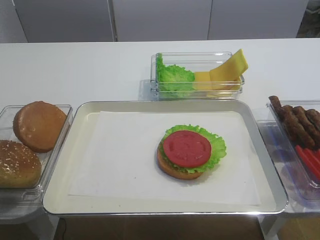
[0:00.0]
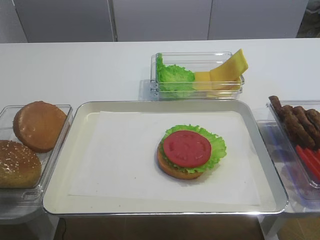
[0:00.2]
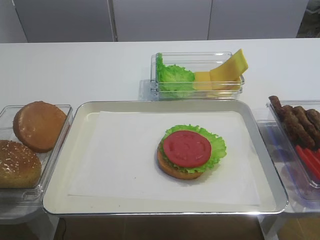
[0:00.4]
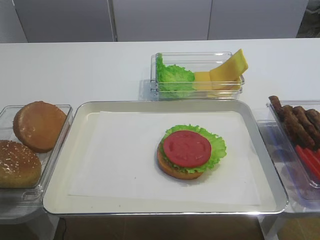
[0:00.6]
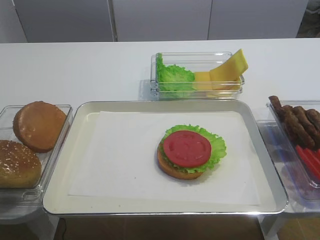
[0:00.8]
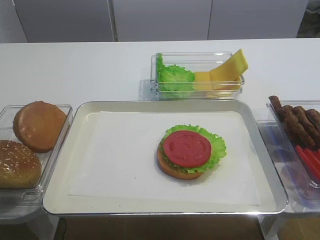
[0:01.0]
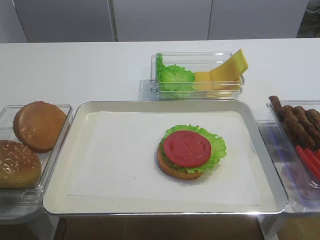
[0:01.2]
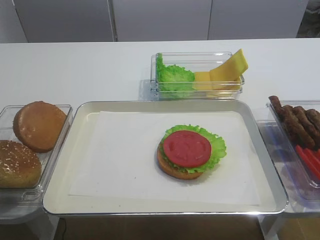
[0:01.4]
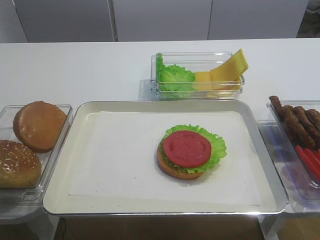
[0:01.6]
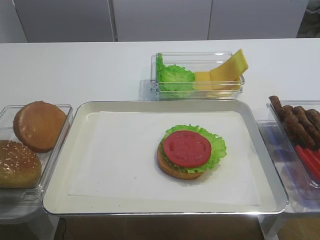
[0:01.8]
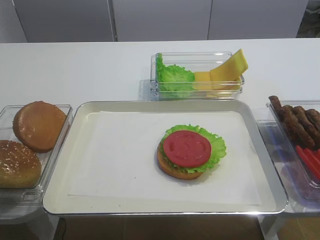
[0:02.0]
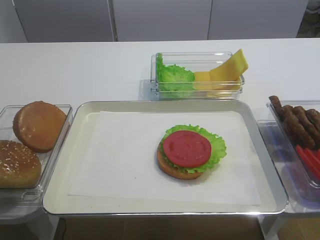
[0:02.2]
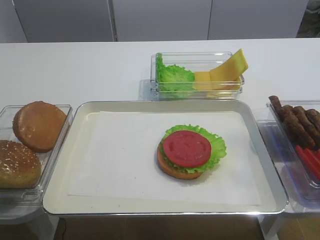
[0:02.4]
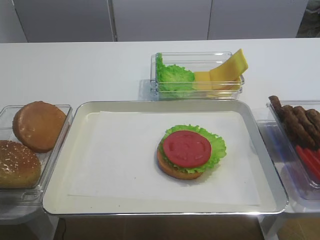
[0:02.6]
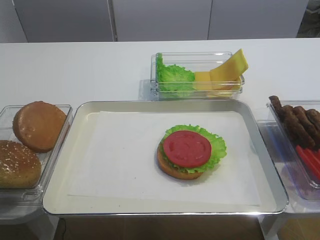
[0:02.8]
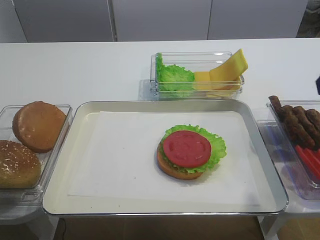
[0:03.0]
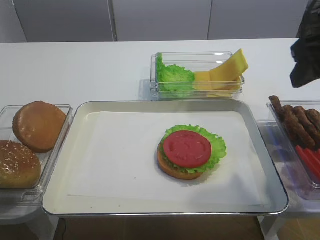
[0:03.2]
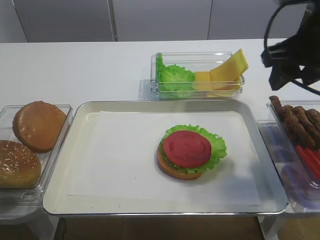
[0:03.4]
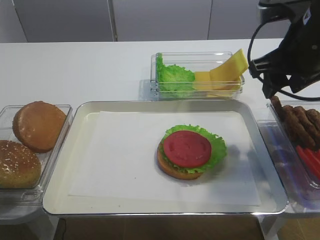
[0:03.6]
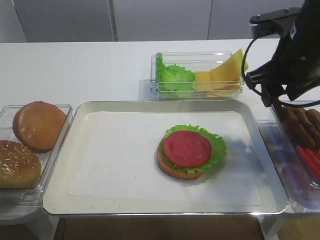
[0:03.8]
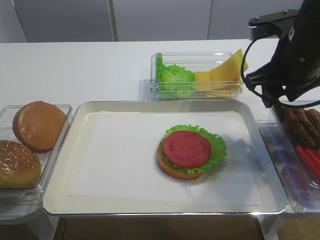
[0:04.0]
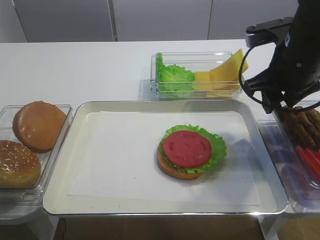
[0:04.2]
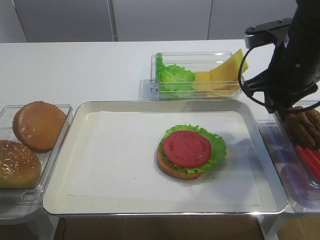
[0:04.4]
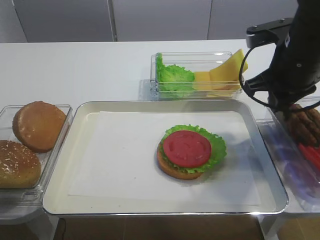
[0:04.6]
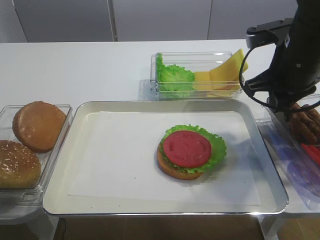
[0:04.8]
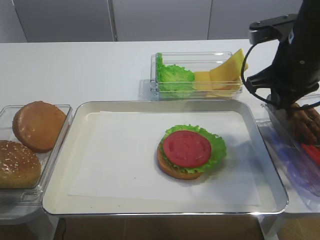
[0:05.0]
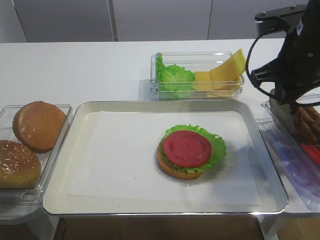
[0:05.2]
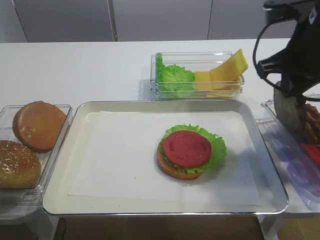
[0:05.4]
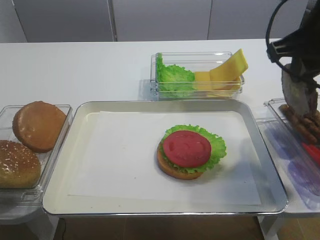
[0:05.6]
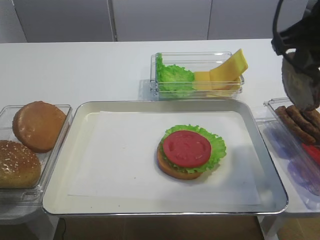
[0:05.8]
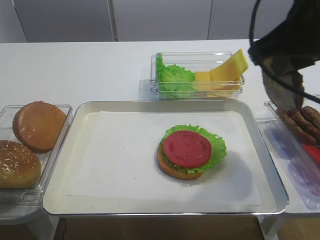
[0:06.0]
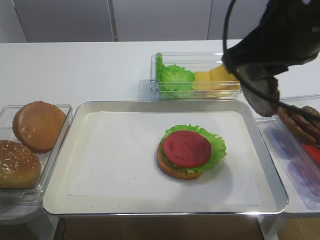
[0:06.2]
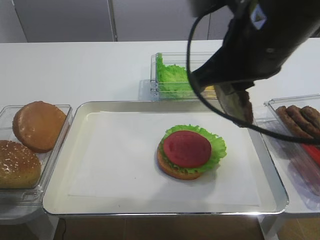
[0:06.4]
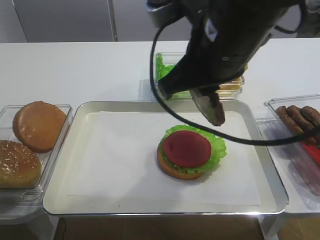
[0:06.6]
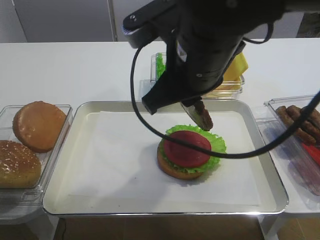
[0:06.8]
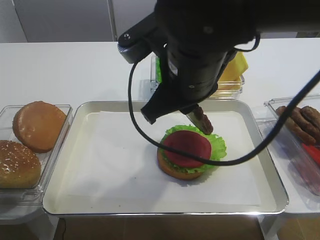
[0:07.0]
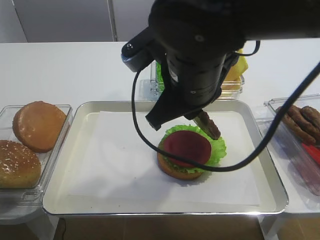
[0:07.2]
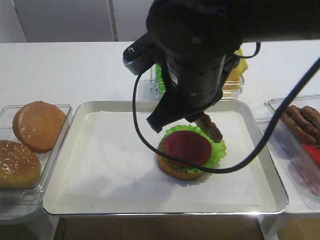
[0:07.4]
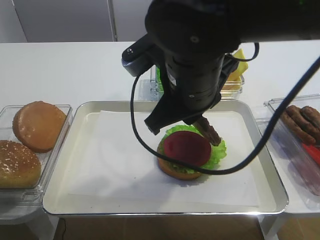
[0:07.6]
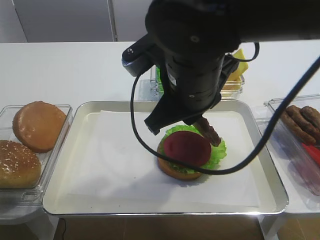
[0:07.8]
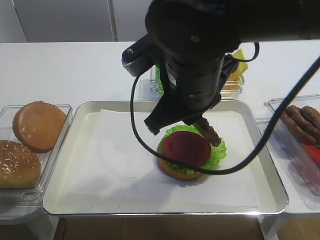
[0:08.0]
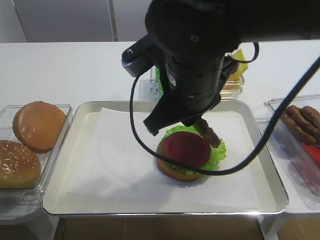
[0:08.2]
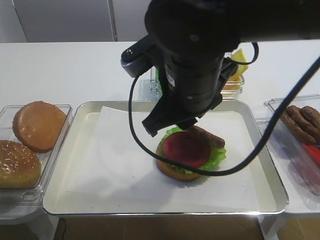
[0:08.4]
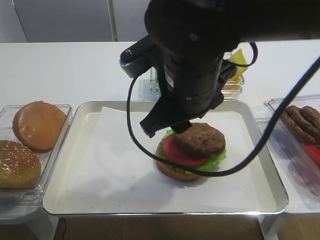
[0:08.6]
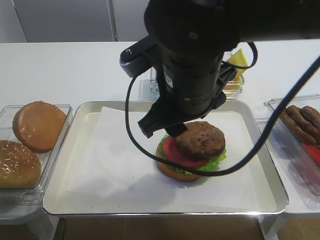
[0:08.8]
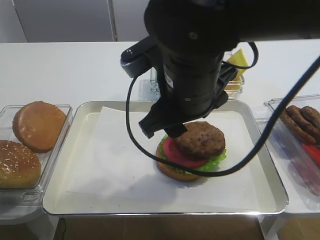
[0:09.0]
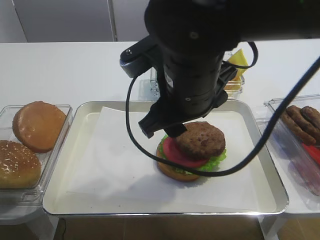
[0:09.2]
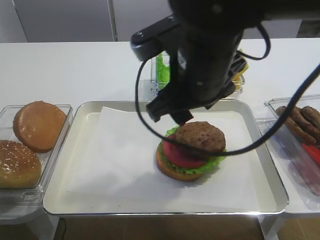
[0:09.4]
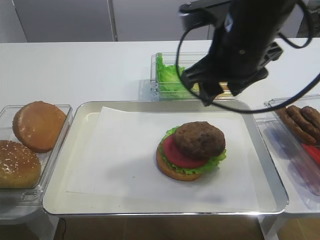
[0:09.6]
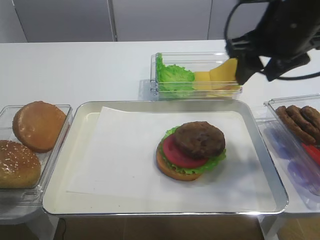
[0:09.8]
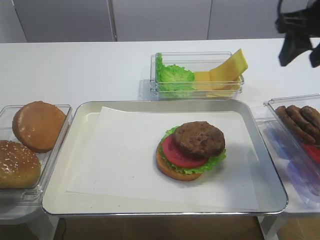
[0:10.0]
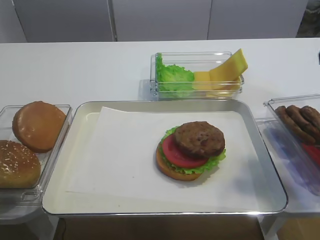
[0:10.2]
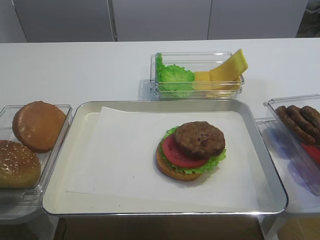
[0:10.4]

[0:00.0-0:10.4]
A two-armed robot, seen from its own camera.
Step, 0:00.0 to 0:05.4: Pick up the cutlet with the right gripper.
Step, 0:05.6 to 0:09.2: Place the cutlet on the tomato slice with the right gripper.
0:01.4 to 0:03.0: The right gripper heads forward, covering roughly 20 cm.
0:03.0 to 0:04.4: The right gripper moves forward, downward and to the left, roughly 15 cm, and closes up.
0:04.4 to 0:06.0: The right gripper goes some 15 cm upward and backward.
0:06.0 to 0:07.4: The right gripper goes some 15 cm to the left and downward.
0:07.4 to 0:09.0: The right gripper opens.
0:09.0 to 0:10.4: The right gripper travels to the right by approximately 25 cm.

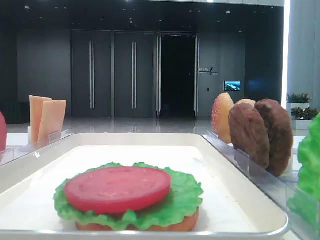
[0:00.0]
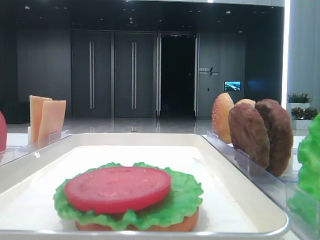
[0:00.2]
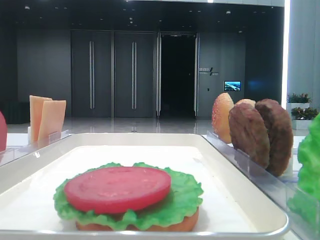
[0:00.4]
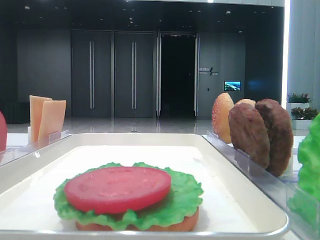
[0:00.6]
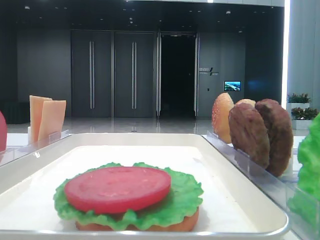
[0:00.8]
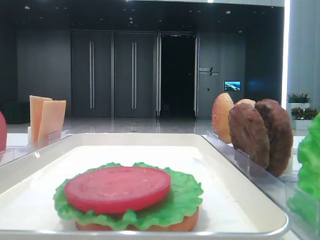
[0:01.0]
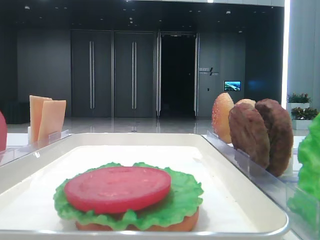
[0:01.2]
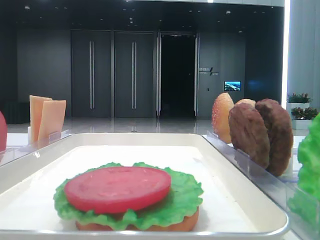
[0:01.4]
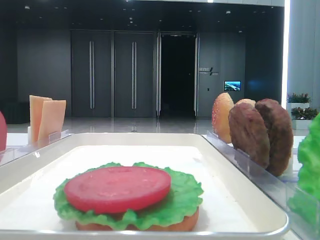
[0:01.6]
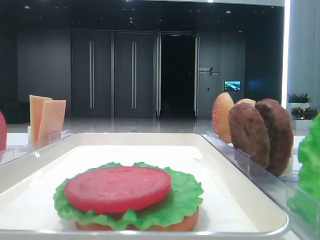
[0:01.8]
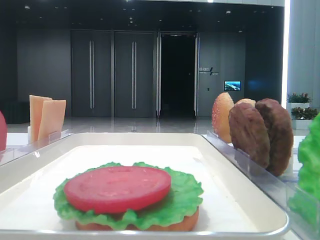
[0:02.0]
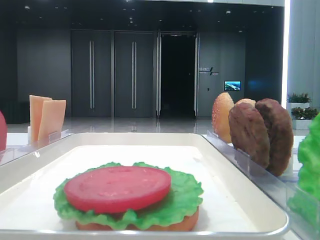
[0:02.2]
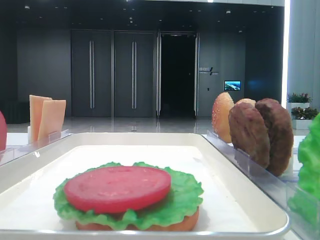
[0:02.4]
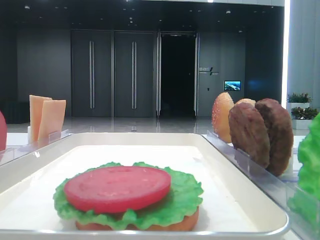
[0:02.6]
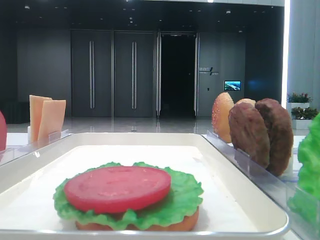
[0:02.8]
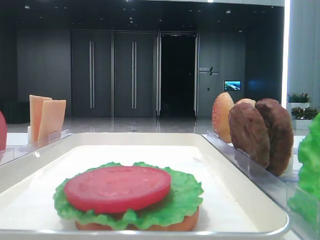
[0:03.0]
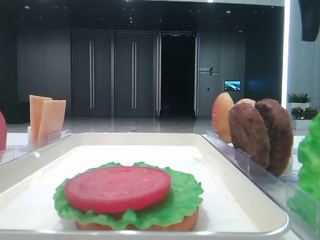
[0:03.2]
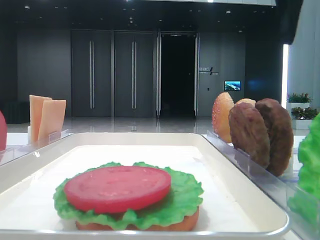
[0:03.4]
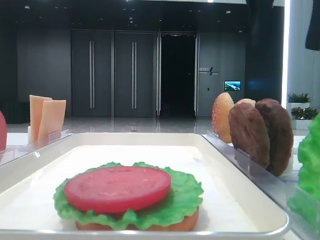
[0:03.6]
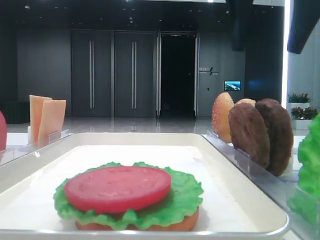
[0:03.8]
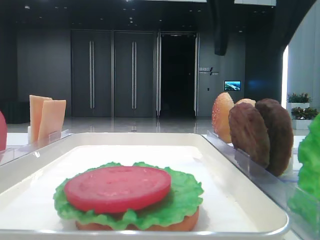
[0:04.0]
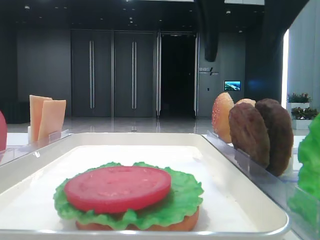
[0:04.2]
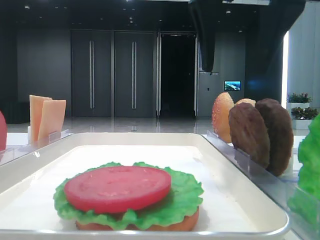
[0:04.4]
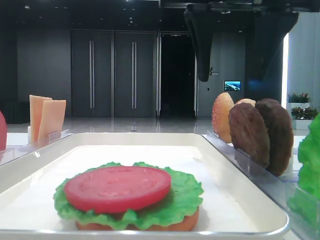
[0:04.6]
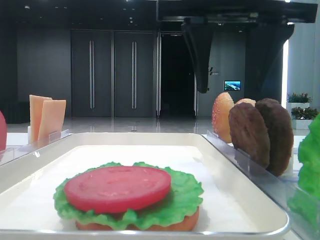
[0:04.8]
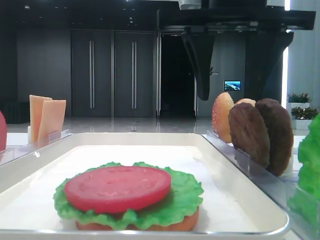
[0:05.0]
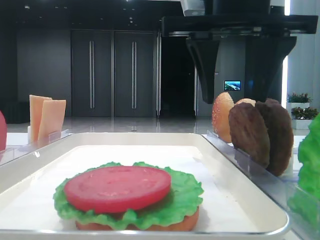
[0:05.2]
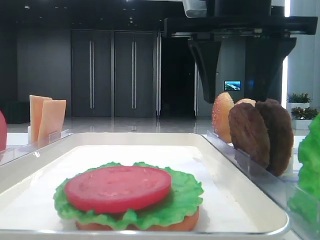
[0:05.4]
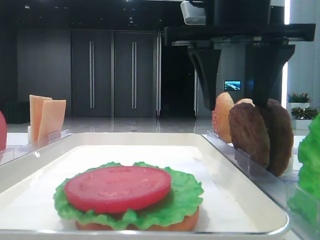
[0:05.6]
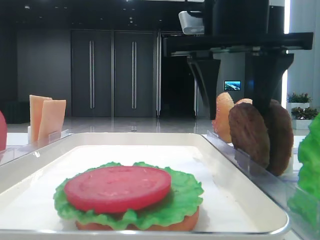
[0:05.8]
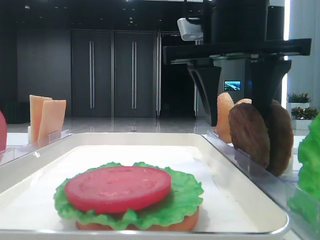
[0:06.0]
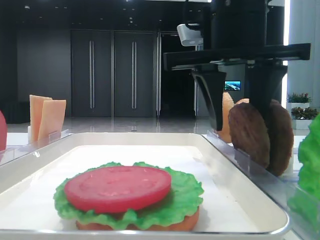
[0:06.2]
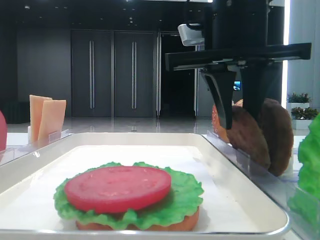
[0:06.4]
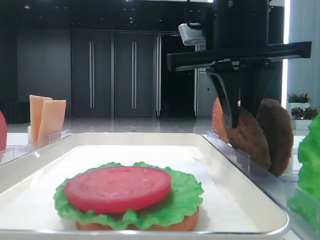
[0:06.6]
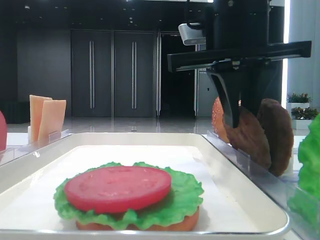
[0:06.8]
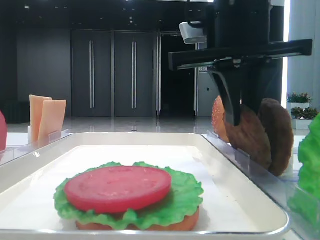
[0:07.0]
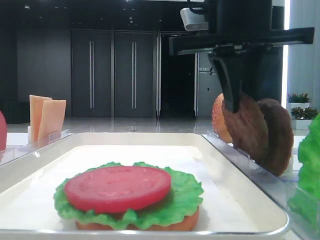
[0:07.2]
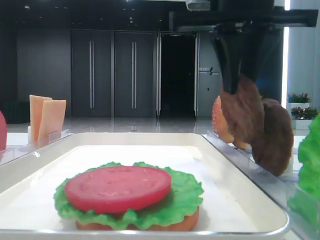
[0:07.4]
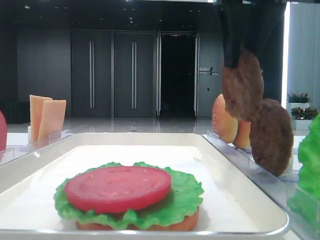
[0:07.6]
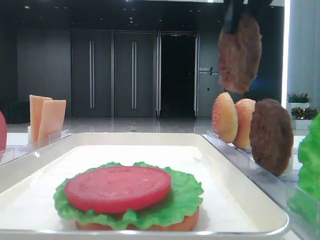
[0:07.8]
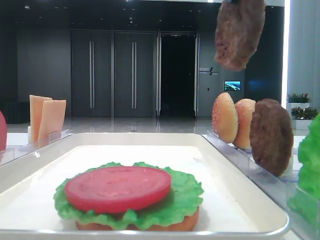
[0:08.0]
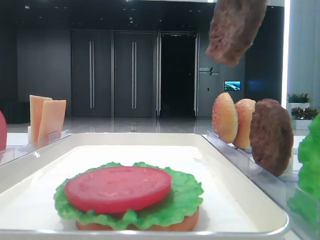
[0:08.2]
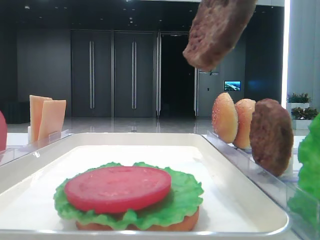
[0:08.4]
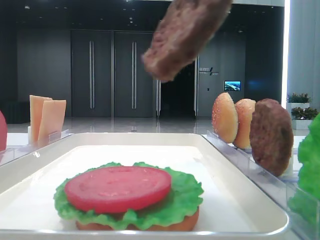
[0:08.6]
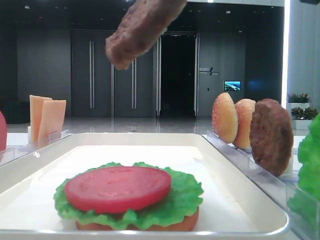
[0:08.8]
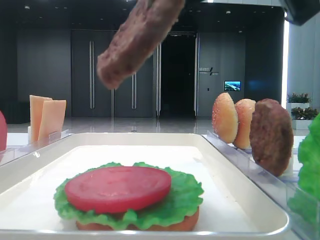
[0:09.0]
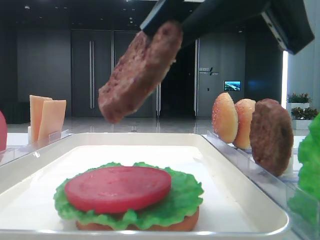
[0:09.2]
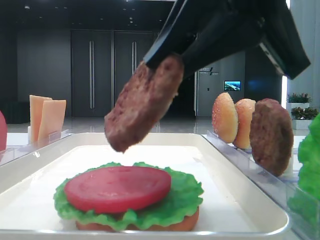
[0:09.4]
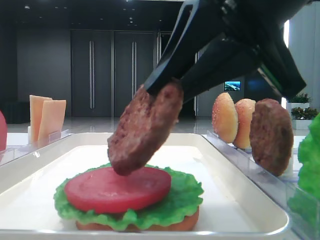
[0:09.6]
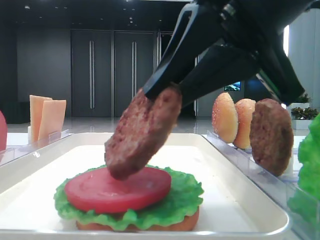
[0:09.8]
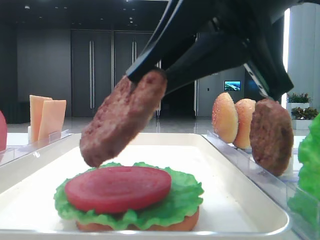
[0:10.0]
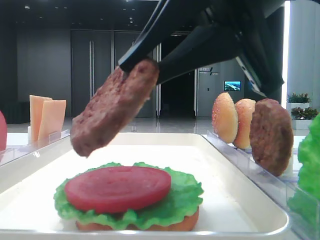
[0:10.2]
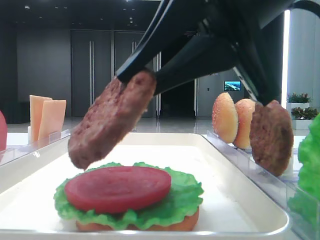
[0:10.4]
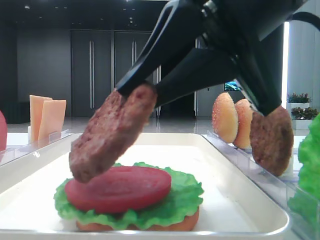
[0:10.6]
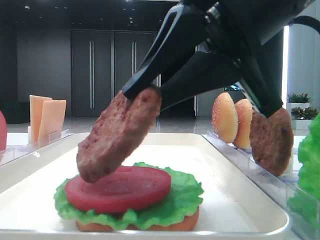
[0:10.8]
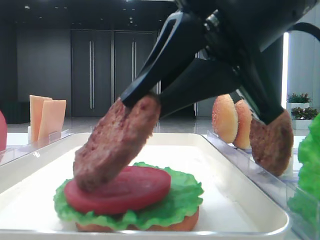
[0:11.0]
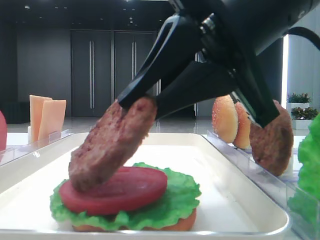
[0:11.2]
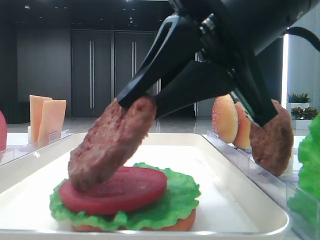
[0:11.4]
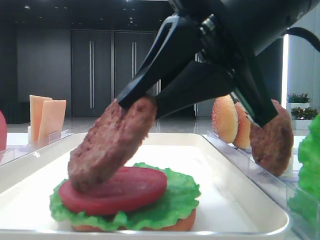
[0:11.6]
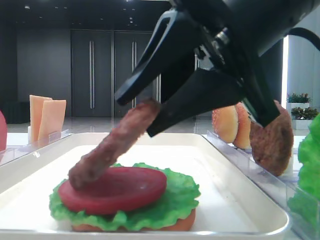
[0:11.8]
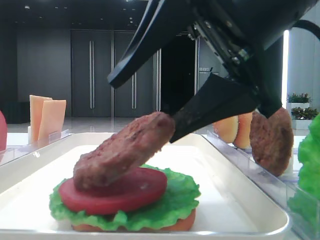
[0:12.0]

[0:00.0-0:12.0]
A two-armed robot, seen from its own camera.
0:03.0 to 0:04.4: The right gripper heads to the left, covering about 15 cm.
0:04.4 to 0:06.0: The right gripper goes some 5 cm downward.
0:06.0 to 0:07.6: The right gripper is displaced upward by some 5 cm, and closes.
0:07.6 to 0:09.0: The right gripper heads backward, covering roughly 10 cm.
0:09.0 to 0:10.4: The right gripper shifts roughly 5 cm downward.
0:10.4 to 0:12.0: The right gripper opens.
